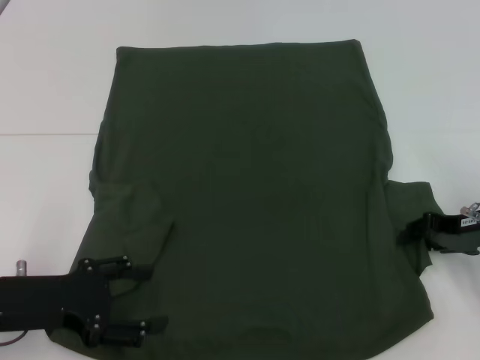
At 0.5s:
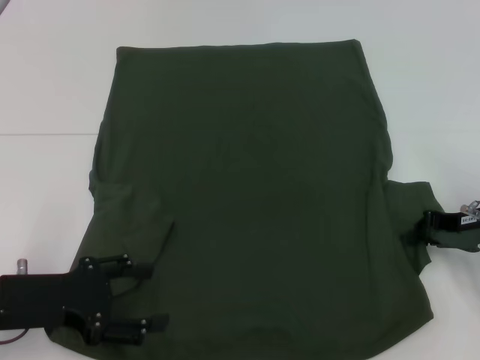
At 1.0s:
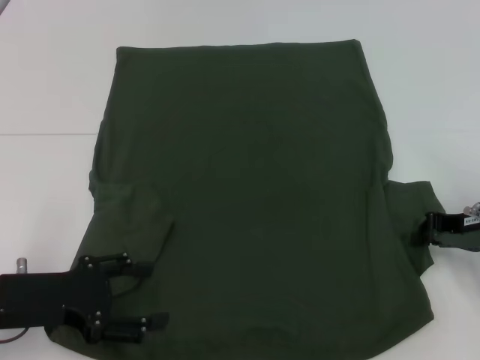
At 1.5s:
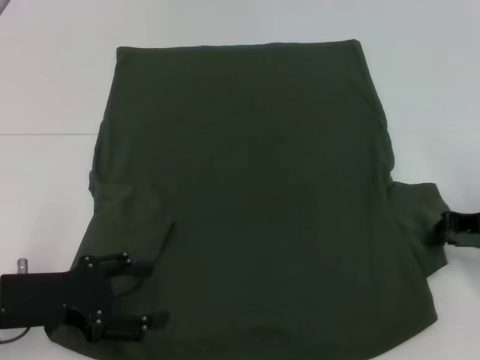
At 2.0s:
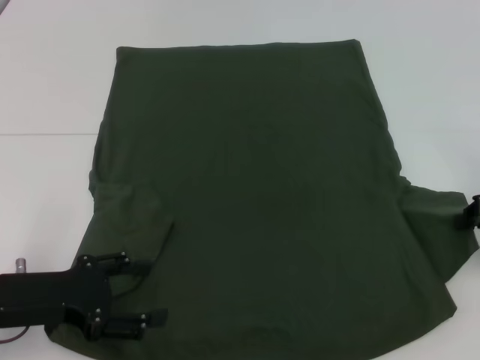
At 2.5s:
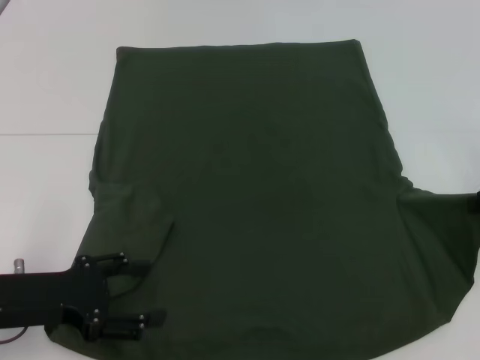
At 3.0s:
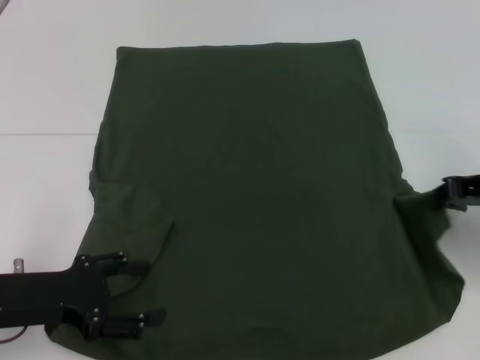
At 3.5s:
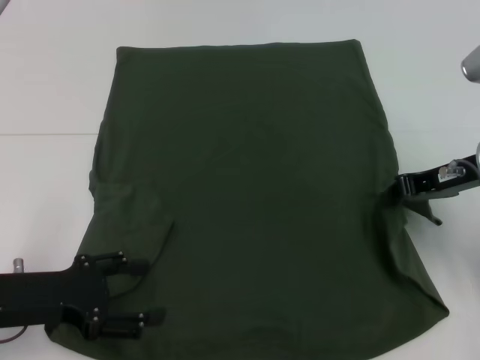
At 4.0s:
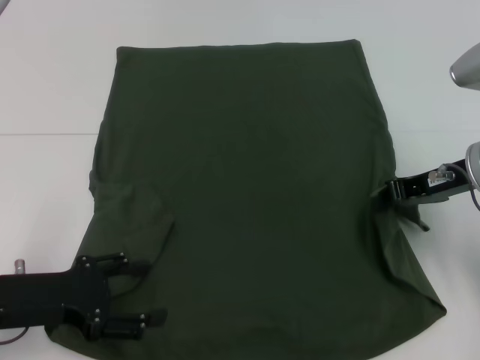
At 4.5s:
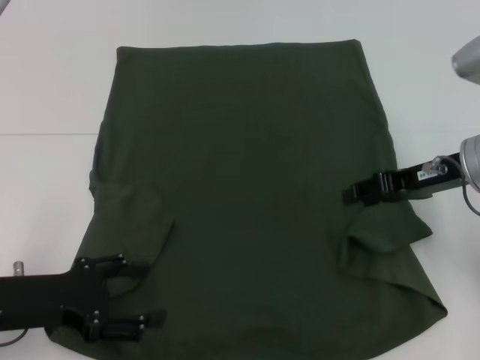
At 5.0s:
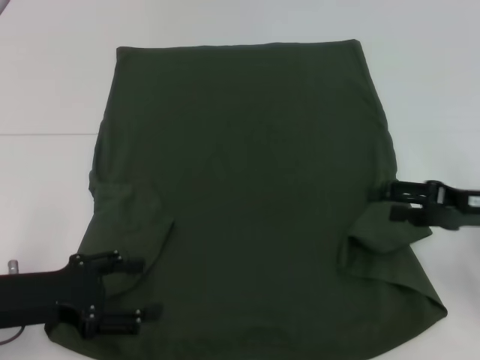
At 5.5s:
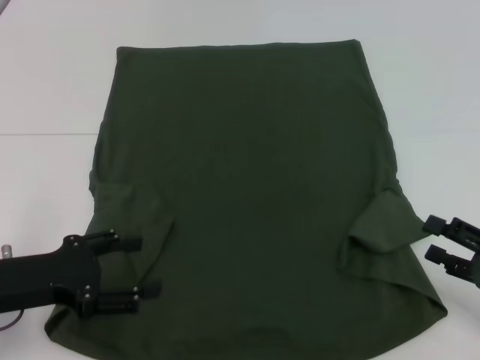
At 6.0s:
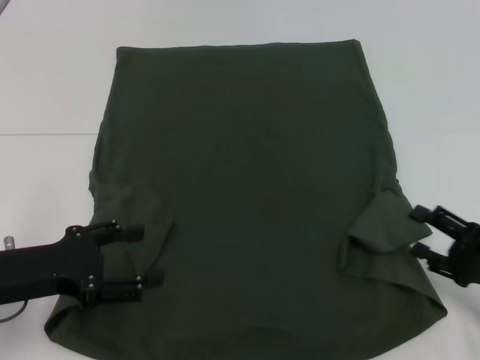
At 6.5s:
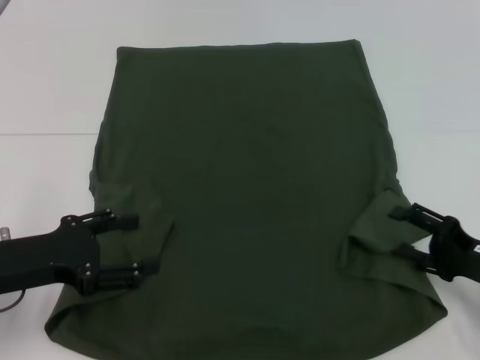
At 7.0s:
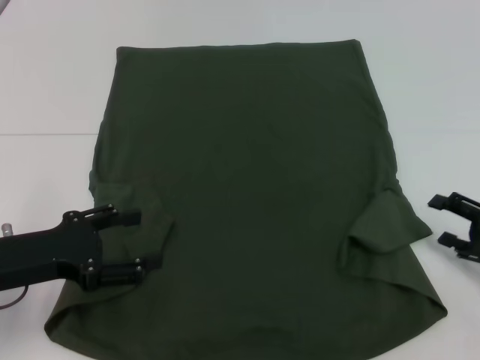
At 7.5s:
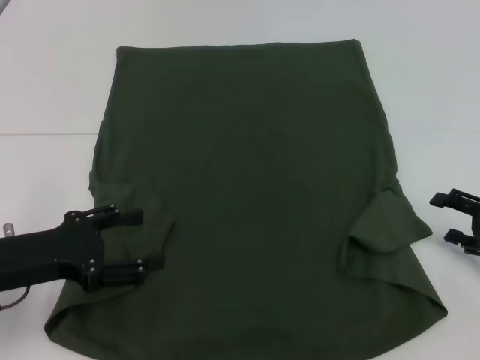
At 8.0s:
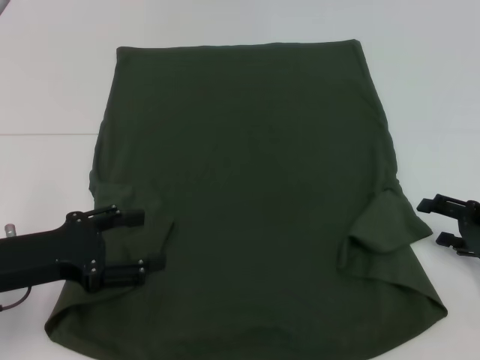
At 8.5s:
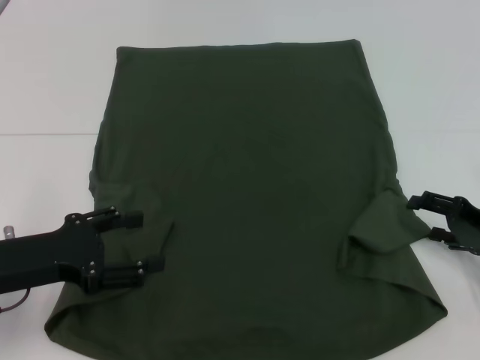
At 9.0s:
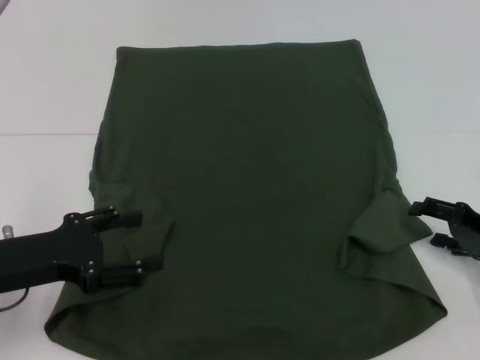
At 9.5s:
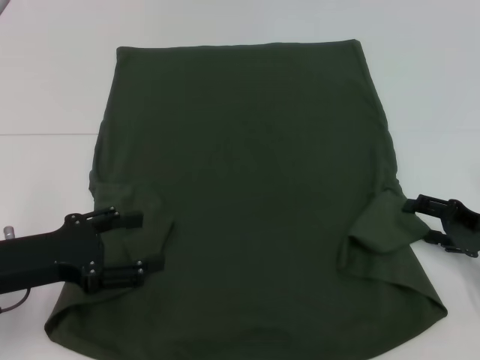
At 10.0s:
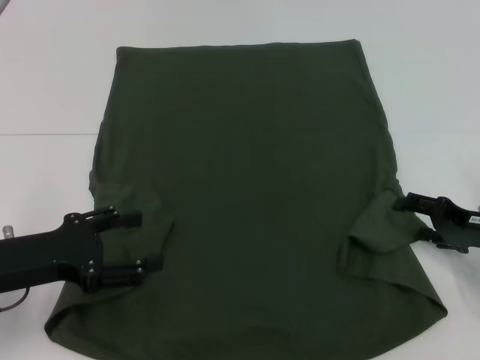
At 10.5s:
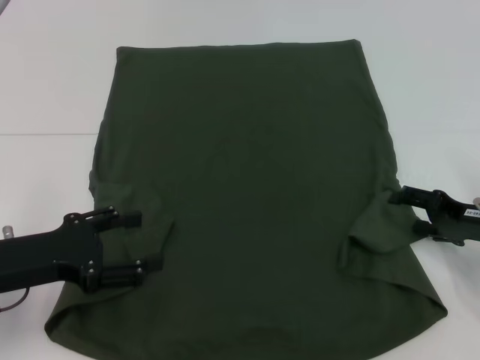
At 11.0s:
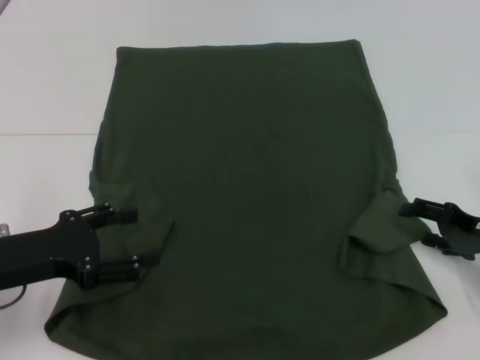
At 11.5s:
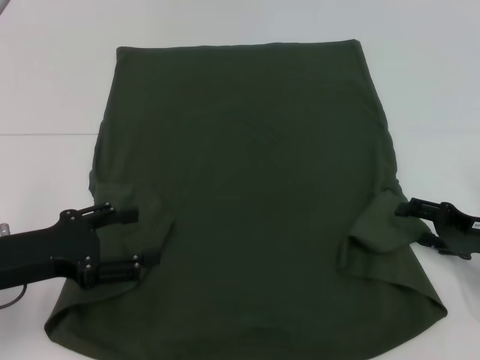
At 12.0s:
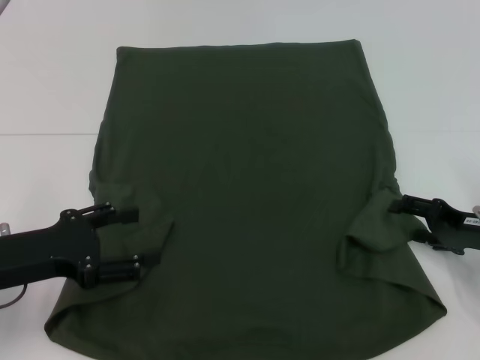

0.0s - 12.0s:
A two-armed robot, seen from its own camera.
0.0s - 2.0s: The right gripper shifts by about 5 cm, and closes.
2.0s - 4.0s: The right gripper heads to the left, covering roughly 10 cm.
4.0s - 6.0s: The right gripper shifts roughly 20 cm downward, backward and to the right, and opens up.
6.0s - 8.0s: The right gripper goes roughly 5 cm forward.
8.0s - 10.0s: The grippers make only small movements.
10.0s - 12.0s: Both grippers stay about where they are.

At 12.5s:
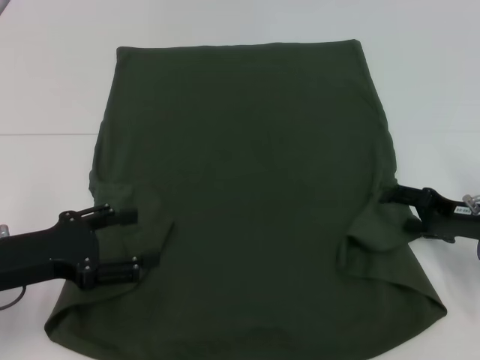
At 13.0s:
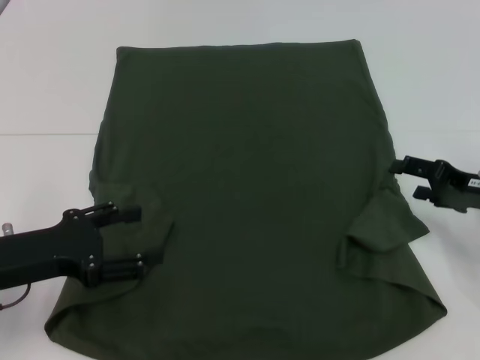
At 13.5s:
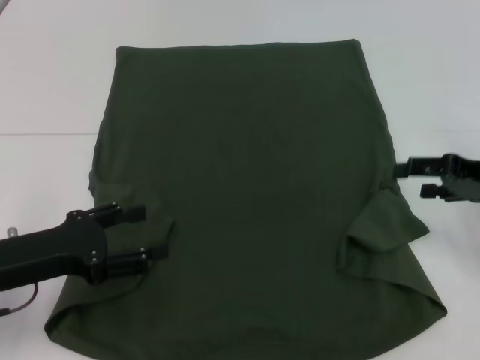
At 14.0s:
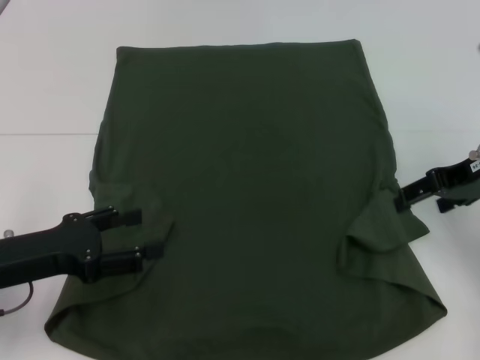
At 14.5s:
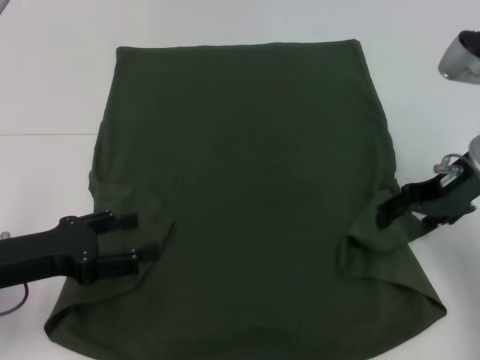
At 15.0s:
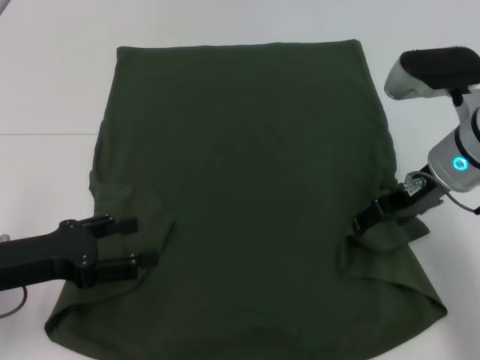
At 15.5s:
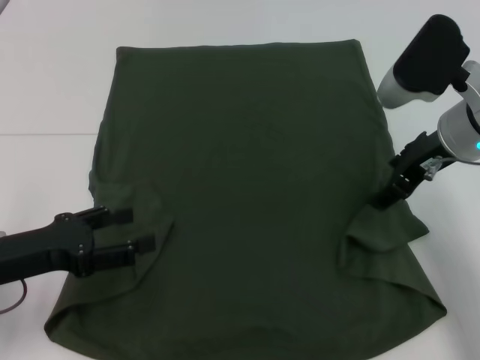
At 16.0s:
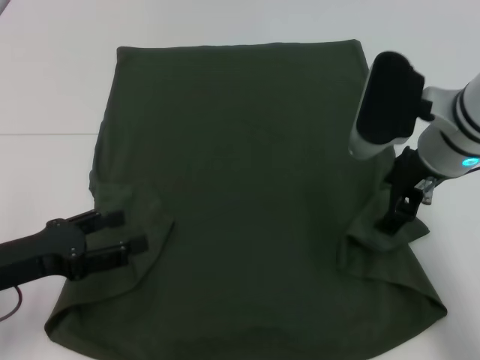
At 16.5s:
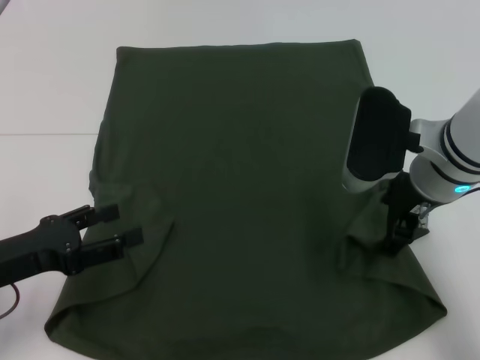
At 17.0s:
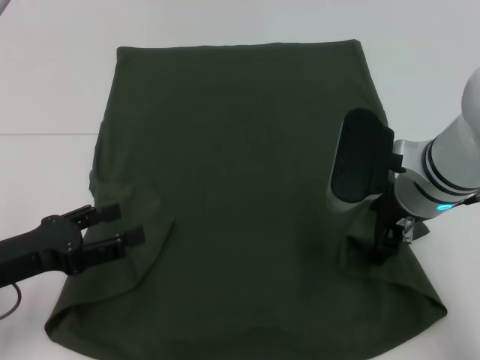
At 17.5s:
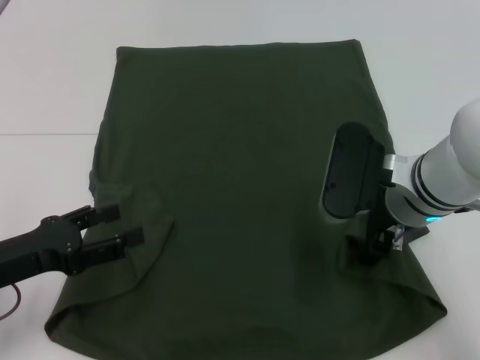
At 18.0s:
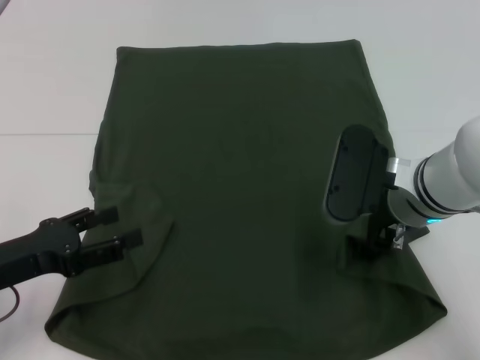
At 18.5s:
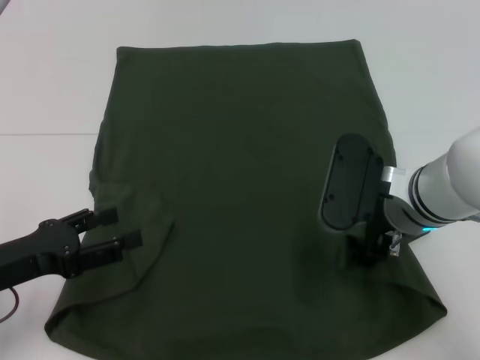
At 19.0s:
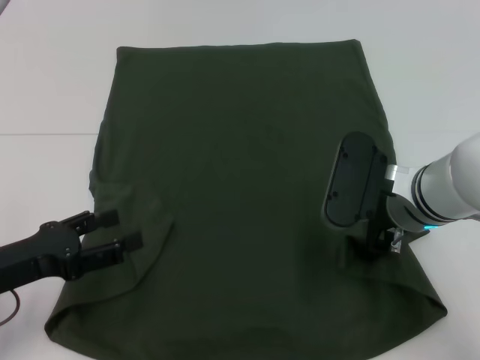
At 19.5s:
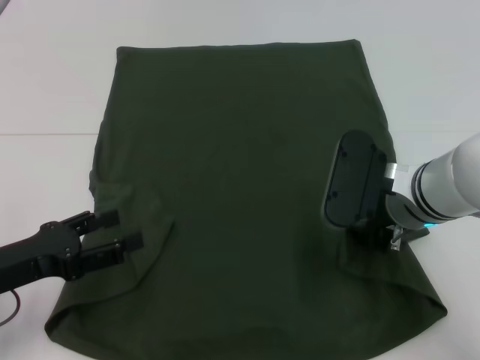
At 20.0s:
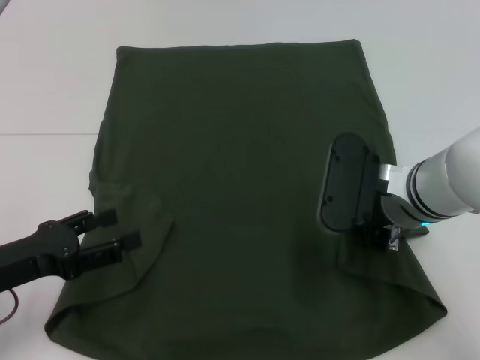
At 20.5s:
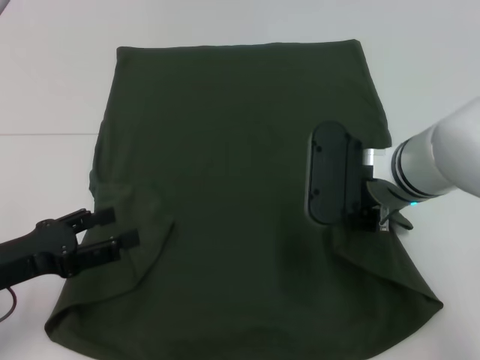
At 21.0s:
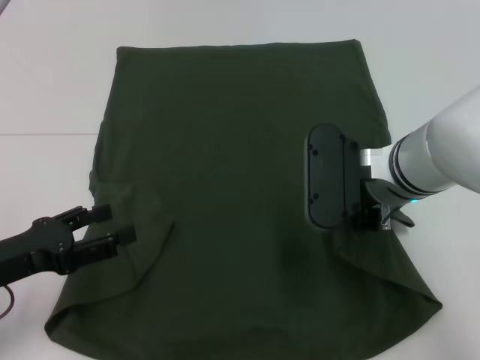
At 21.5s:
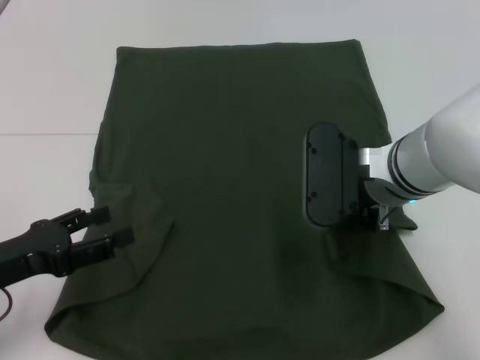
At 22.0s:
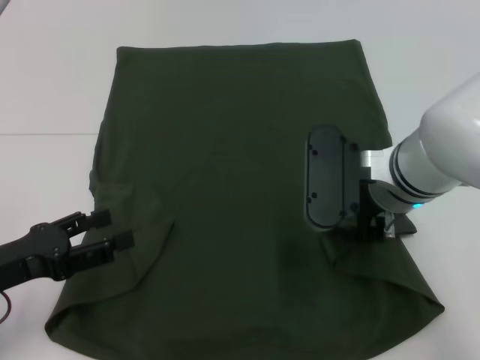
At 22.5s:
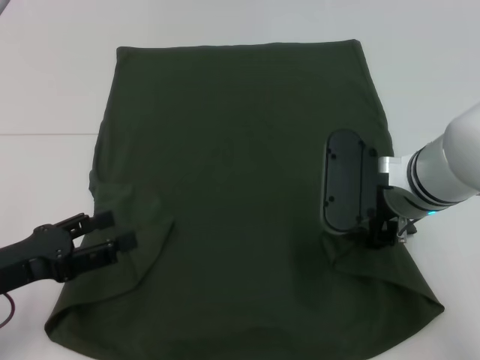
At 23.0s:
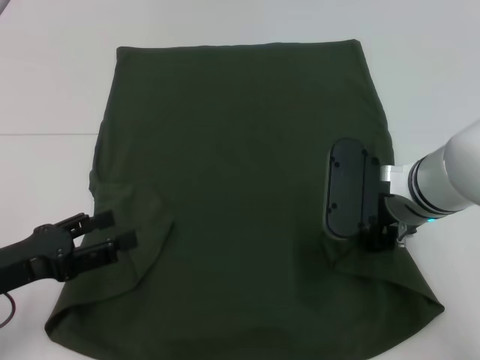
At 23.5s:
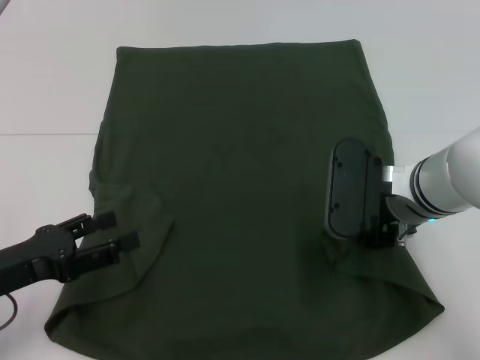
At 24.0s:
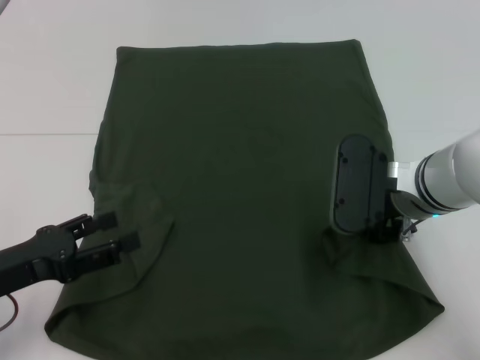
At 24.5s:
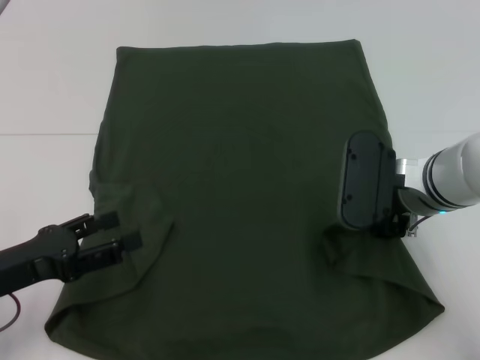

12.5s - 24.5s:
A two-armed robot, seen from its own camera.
12.5s - 14.5s: The right gripper travels upward and to the left by some 15 cm.
14.5s - 16.5s: The right gripper shifts some 5 cm to the left.
16.5s - 18.5s: The right gripper moves approximately 5 cm.
18.5s - 20.5s: The right gripper closes its fingers.
20.5s - 22.5s: The right gripper opens up.
22.5s - 24.5s: The grippers move only a little.

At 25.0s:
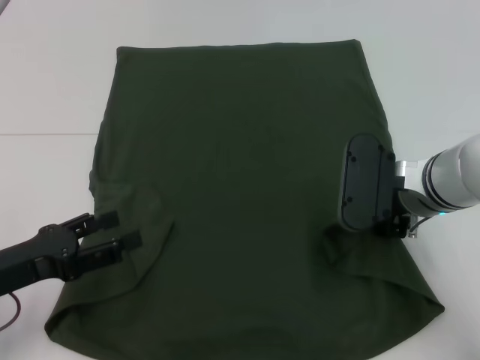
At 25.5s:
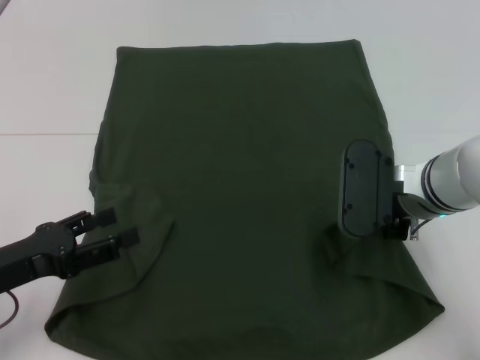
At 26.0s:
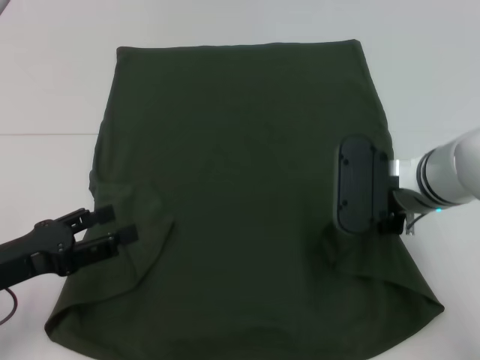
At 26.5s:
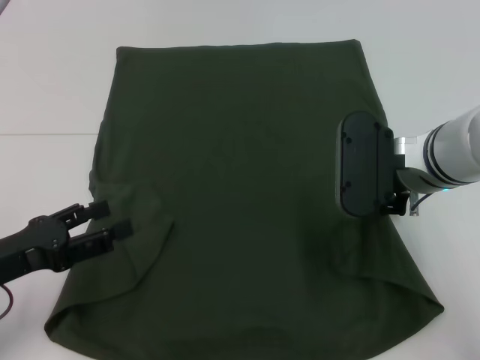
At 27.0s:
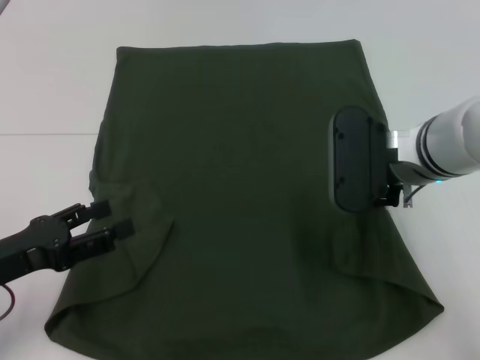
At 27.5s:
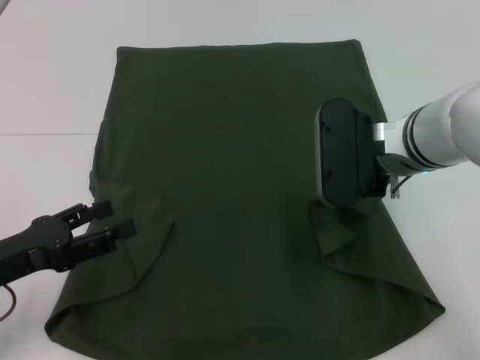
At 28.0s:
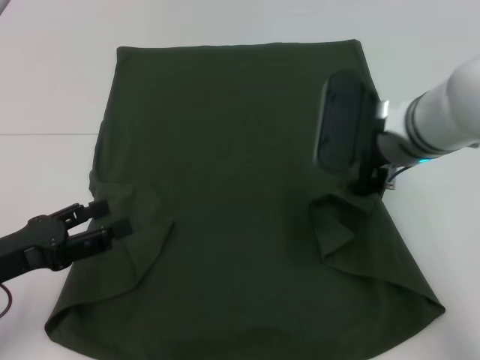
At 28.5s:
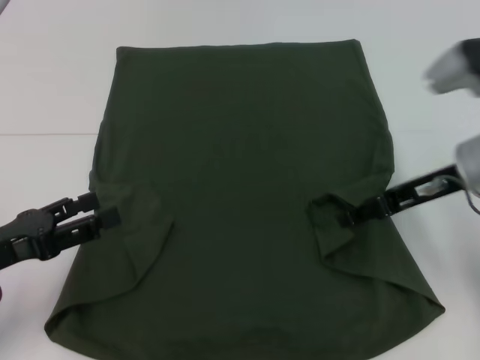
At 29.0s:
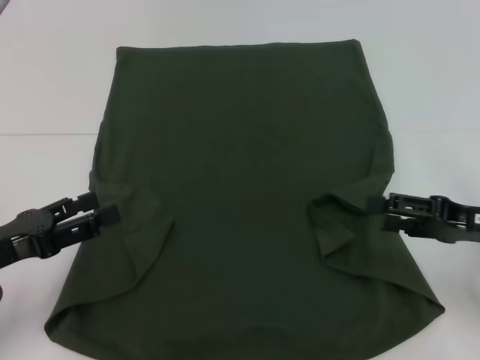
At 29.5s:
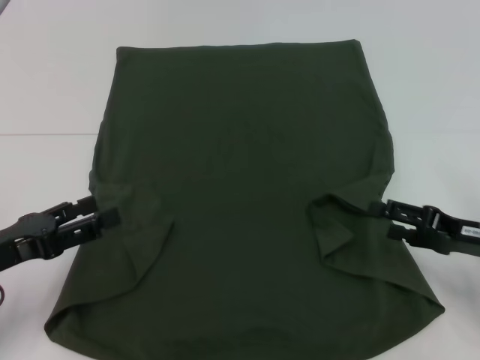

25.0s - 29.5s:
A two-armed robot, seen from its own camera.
25.0s - 27.0s: The right gripper closes its fingers.
27.0s - 29.5s: The right gripper travels to the right, downward and backward by about 20 cm, and opens up.
